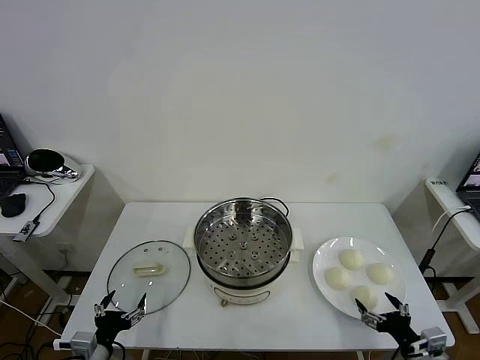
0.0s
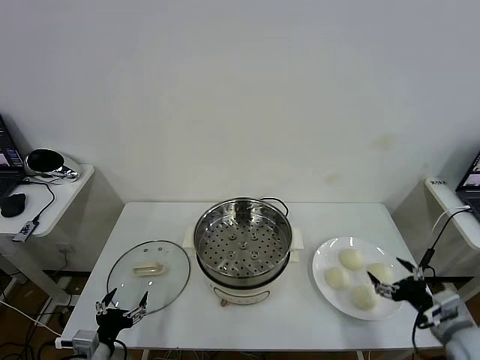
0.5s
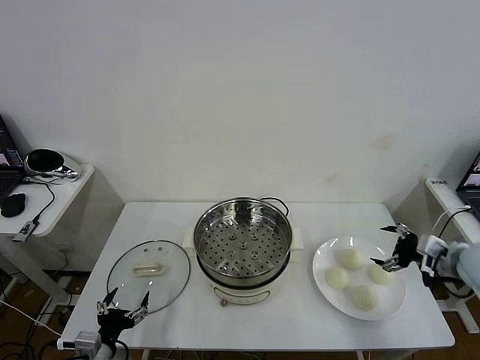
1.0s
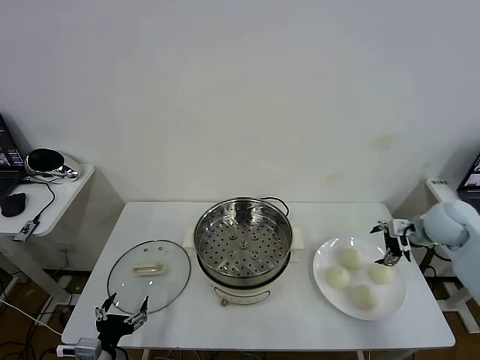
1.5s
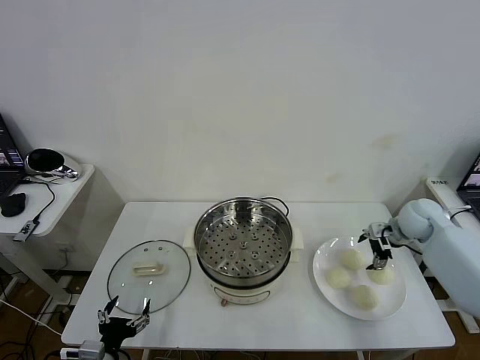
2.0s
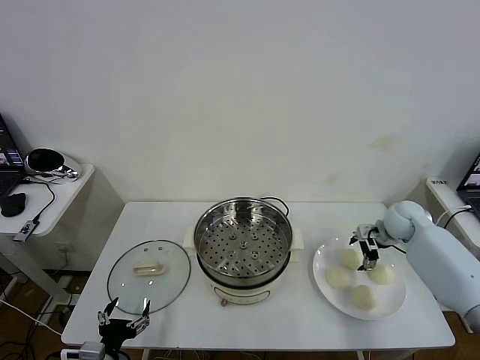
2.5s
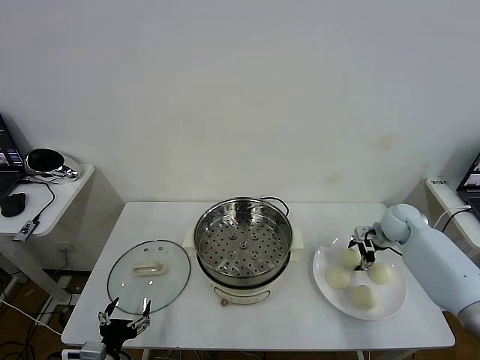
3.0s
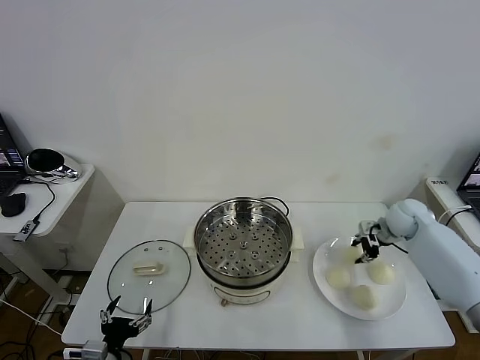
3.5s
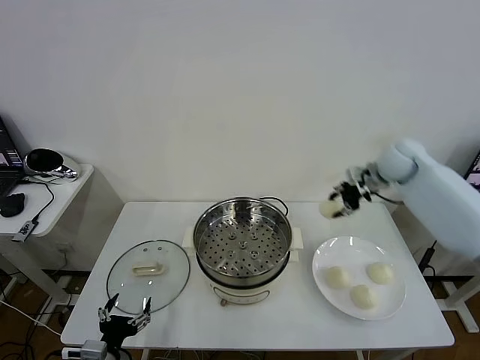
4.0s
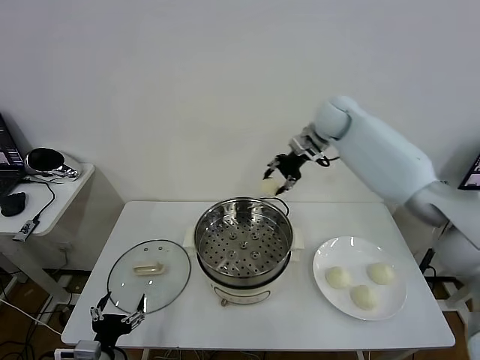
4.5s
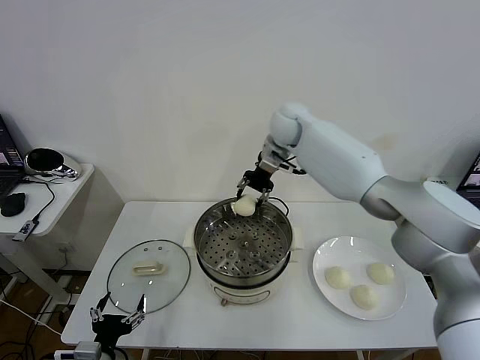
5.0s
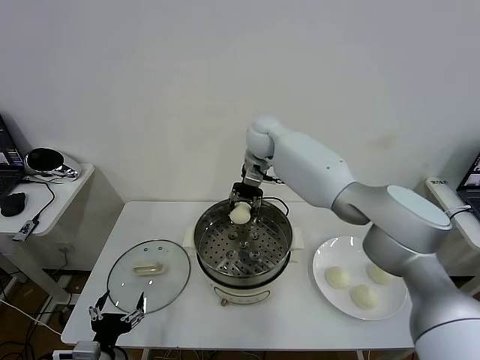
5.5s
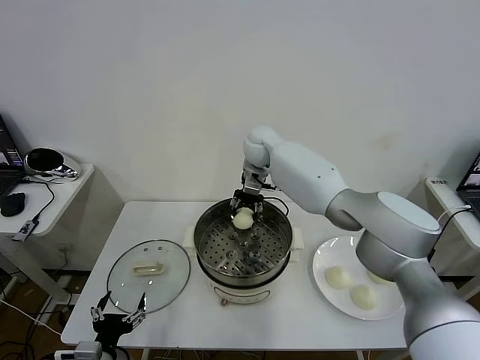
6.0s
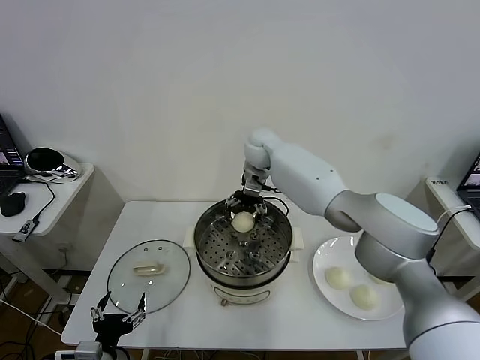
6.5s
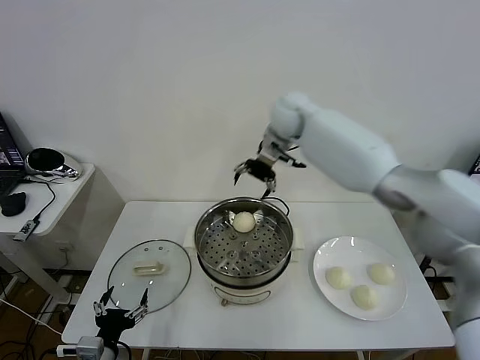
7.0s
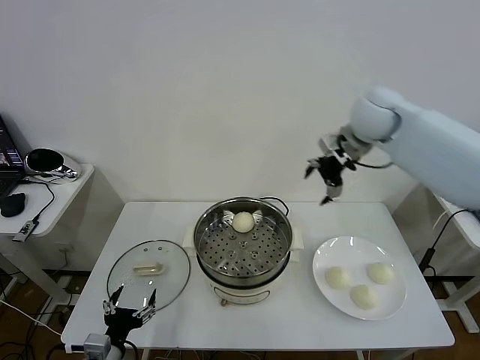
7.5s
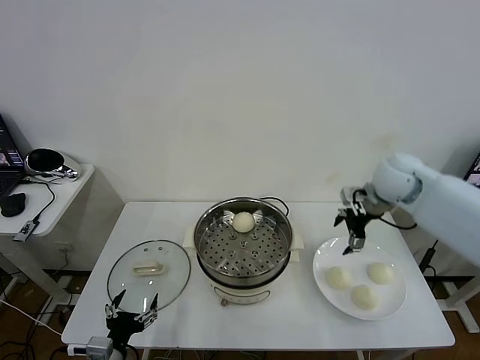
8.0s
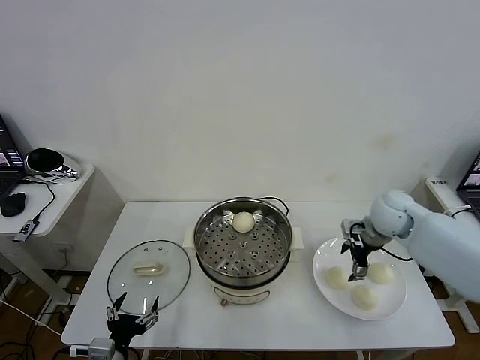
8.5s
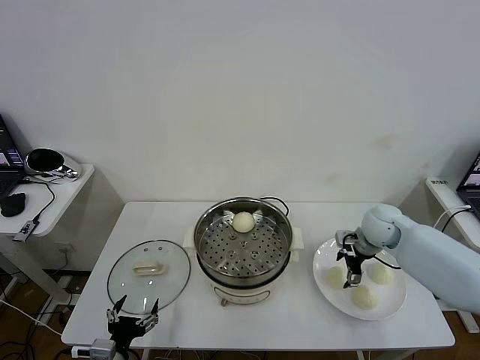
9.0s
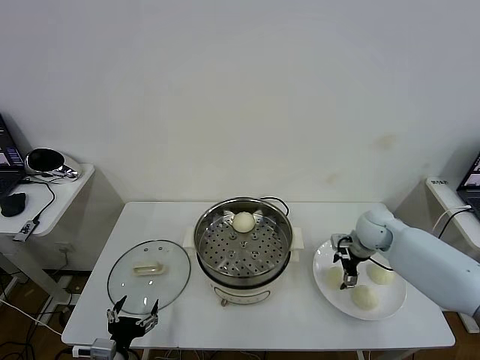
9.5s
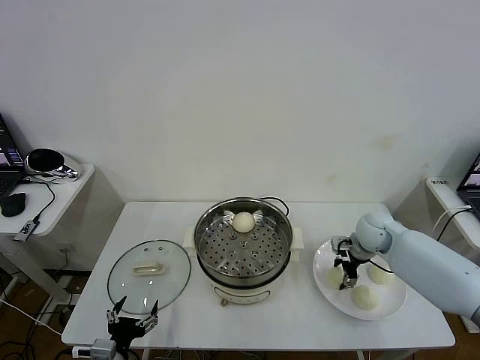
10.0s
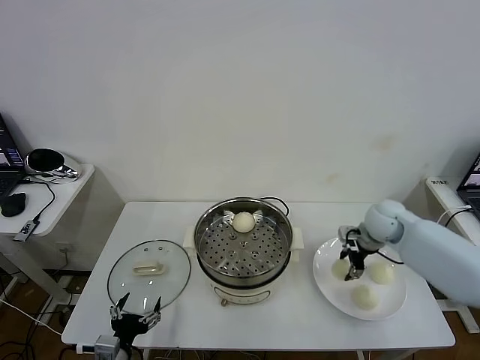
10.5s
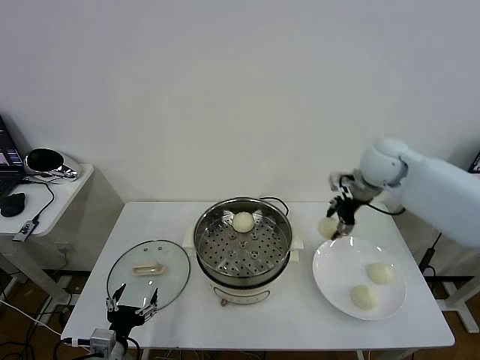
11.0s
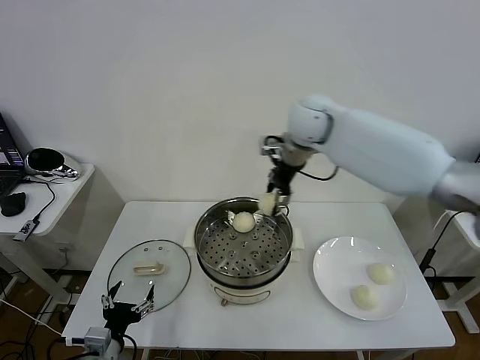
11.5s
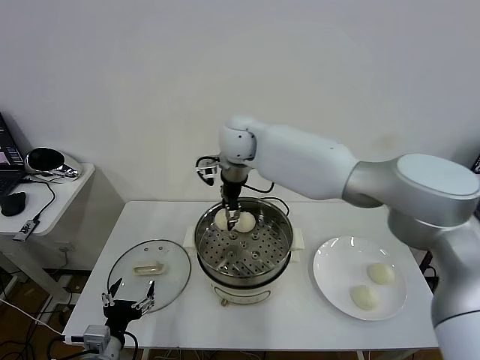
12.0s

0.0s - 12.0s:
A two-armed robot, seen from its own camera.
Task of the whole recording: take steamed baozi put them in steamer then cover it.
Step, 0.0s - 3.0s: Grasp the baozi in the plate with right gripper.
Step, 3.5s - 6.5s: Place the baozi on the steamer with right gripper.
Step, 7.0s - 10.0s: Grasp the baozi in the plate with right gripper.
2.0s - 4.0s: The right gripper moves upward, to the left and forward, approximately 20 cm, and closes.
4.0s - 6.0s: The right gripper shifts approximately 30 cm to the left.
6.0s - 8.0s: The right gripper shifts some 30 cm to the right and backward, and opens its fingers.
8.0s - 10.0s: The right gripper goes roughly 15 cm downward.
10.0s - 12.0s: The right gripper heads to the left and upward, covering roughly 40 cm.

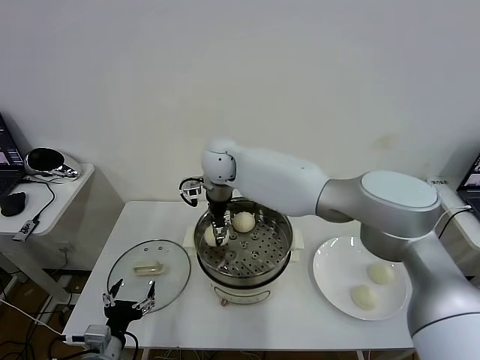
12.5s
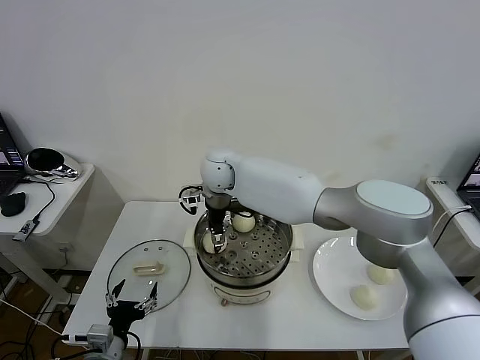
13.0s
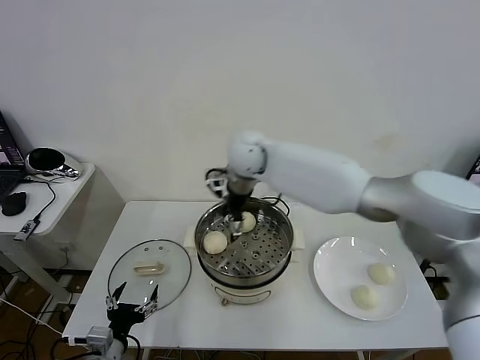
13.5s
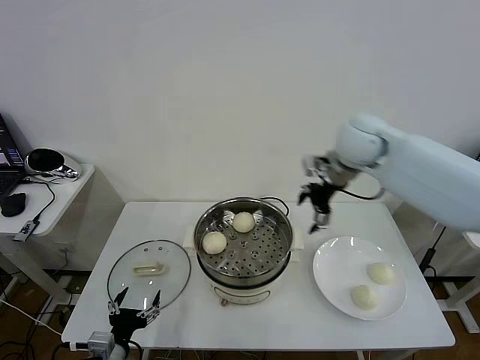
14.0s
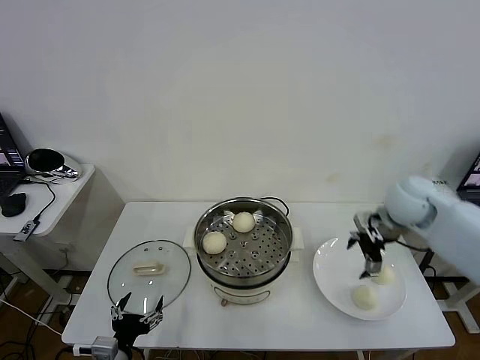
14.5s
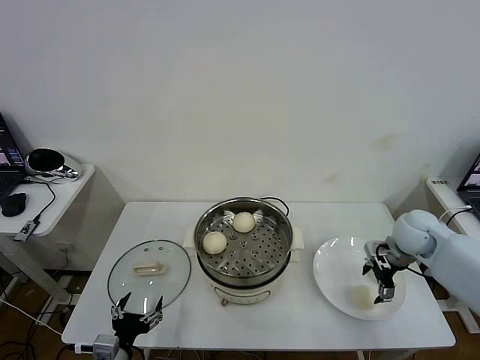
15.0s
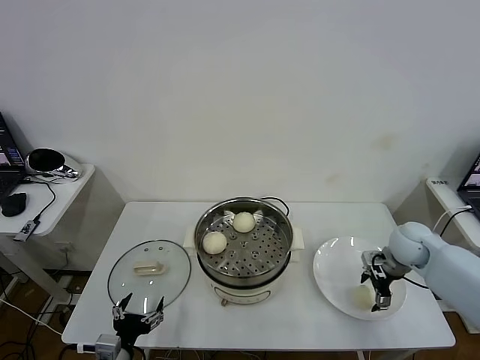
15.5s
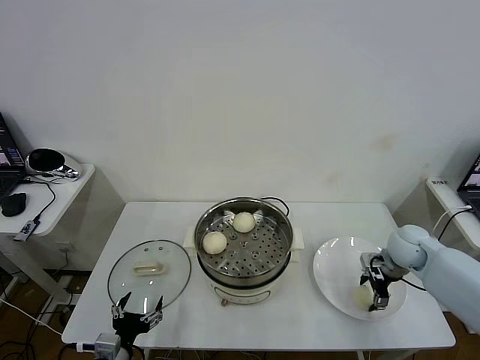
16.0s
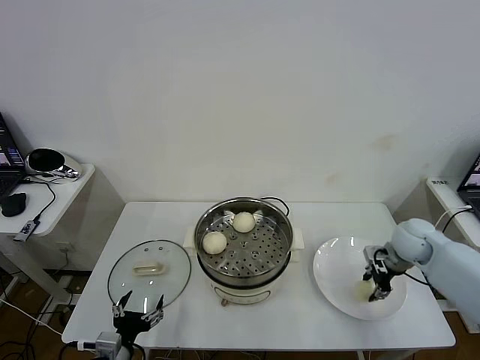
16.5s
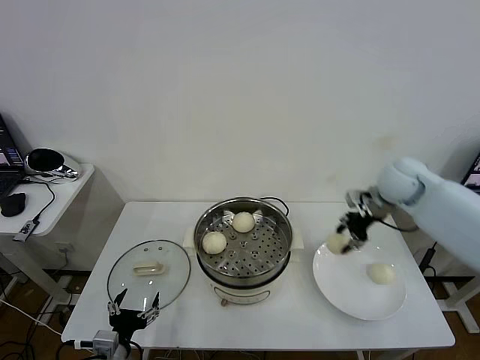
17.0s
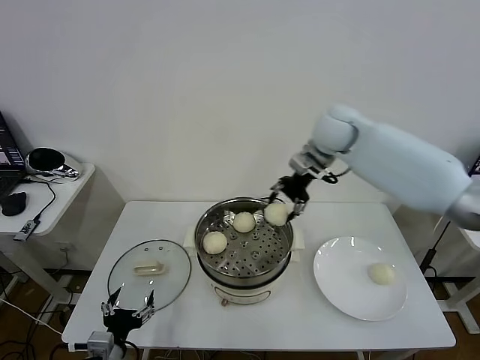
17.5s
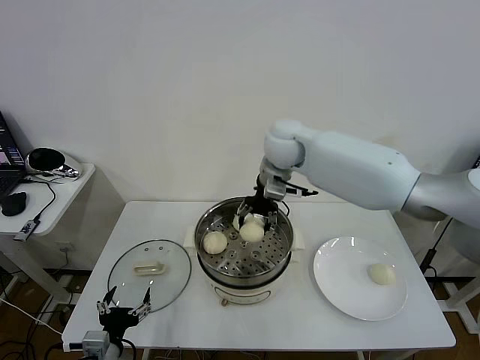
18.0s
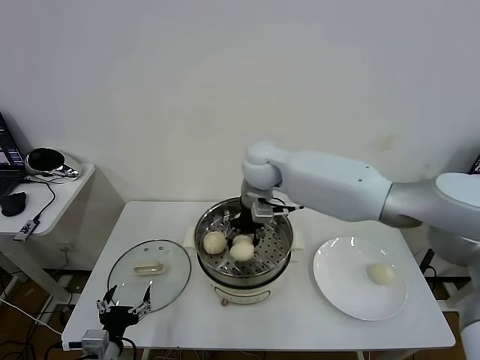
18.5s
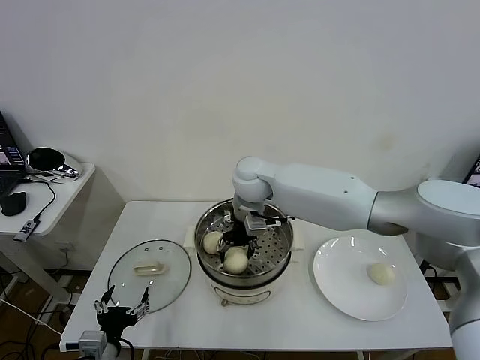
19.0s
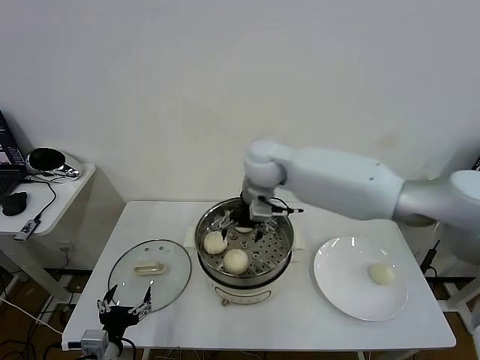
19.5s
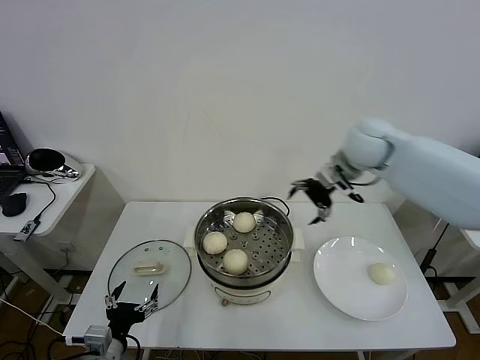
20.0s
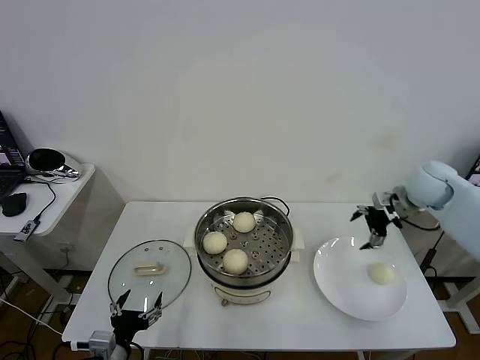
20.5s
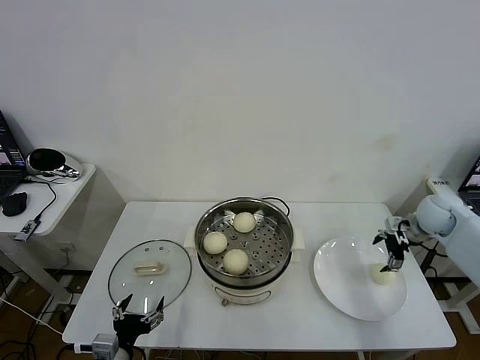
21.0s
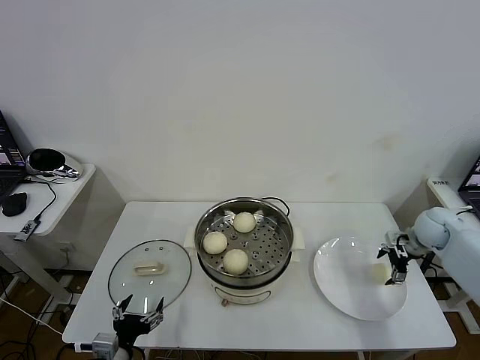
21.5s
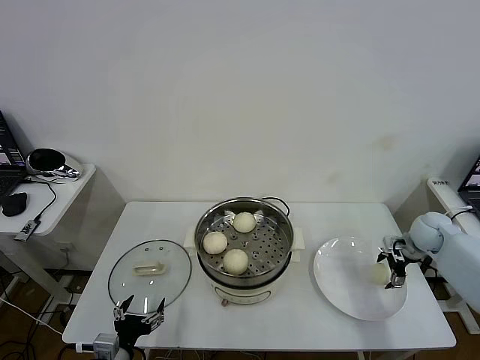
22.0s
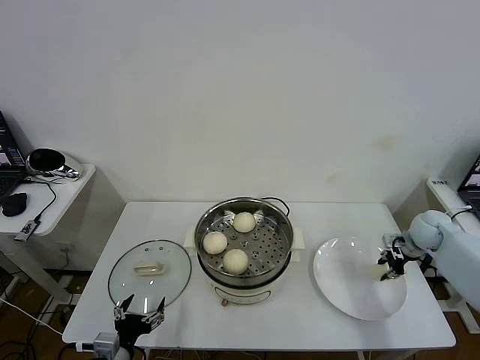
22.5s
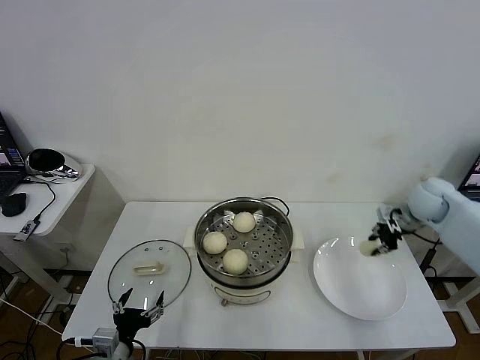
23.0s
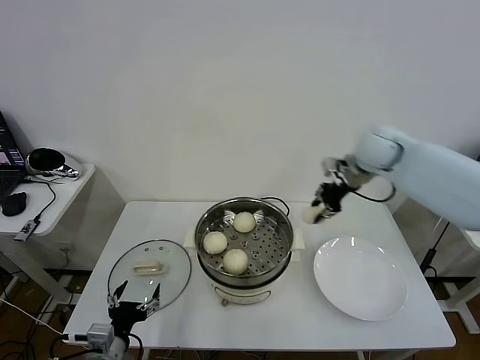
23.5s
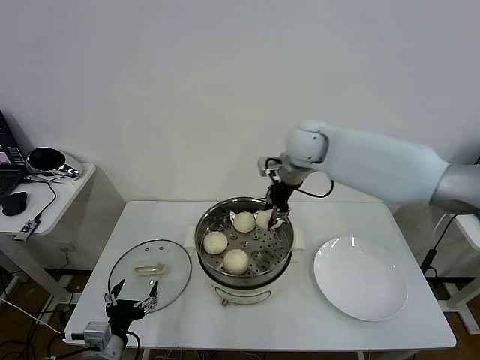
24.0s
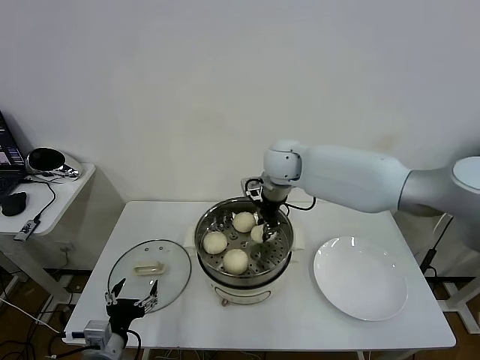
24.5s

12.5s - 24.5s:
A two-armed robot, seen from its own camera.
Task of the whole recording: take steamed baozi put them in steamer then cover it.
Step, 13.5s - 16.0s: Grasp the baozi in the plate with right gripper.
Step, 16.5s - 19.0s: Place the baozi on the steamer with right gripper.
Step, 19.5s - 22.5s: Grasp the baozi in the plate with right gripper.
12.5s - 14.5s: The right gripper shifts roughly 40 cm to the right, and opens up.
14.5s - 16.5s: The right gripper heads downward and to the right, covering approximately 15 cm, and closes up.
16.5s - 18.5s: The right gripper goes approximately 40 cm to the left and upward.
18.5s - 20.5s: The right gripper goes about 35 cm to the right, and opens up.
20.5s - 22.5s: The right gripper goes roughly 15 cm downward and to the right, and closes up.
22.5s - 24.5s: The right gripper shifts approximately 40 cm to the left and upward.

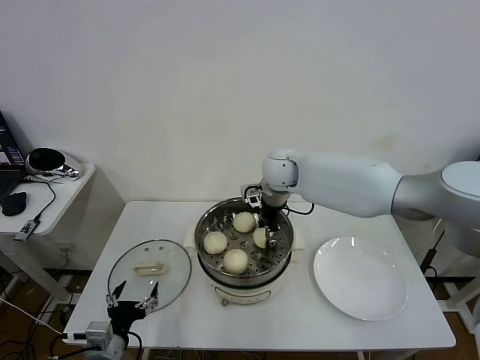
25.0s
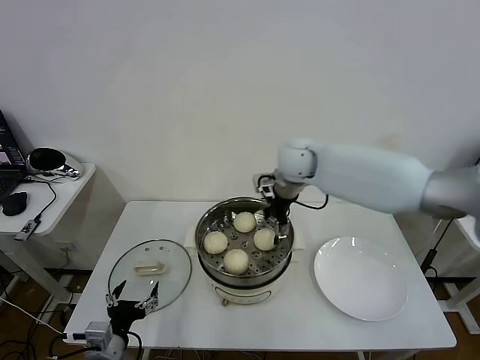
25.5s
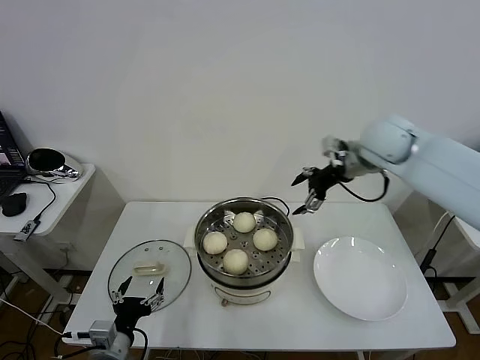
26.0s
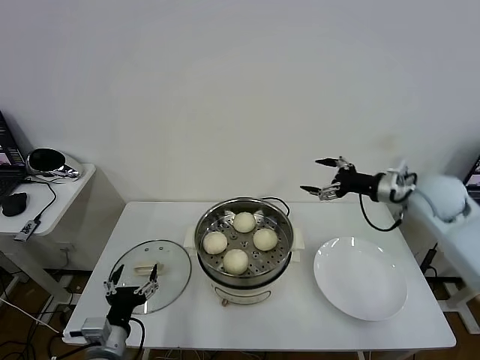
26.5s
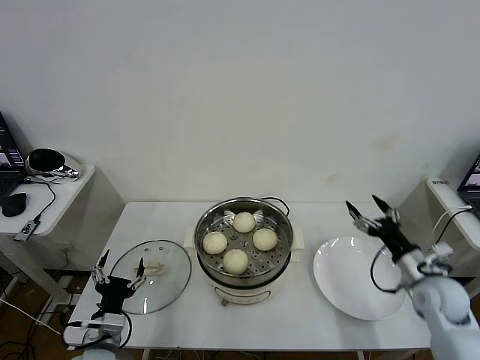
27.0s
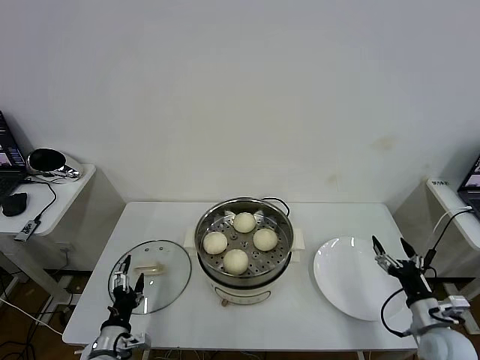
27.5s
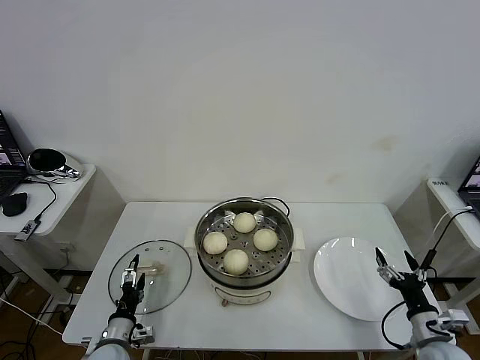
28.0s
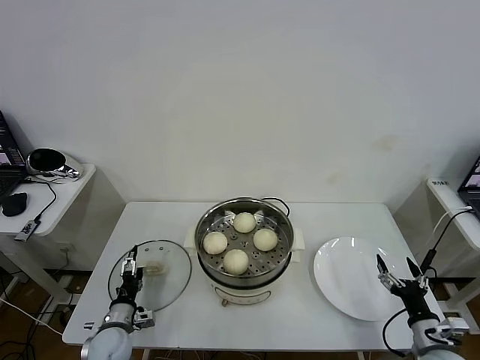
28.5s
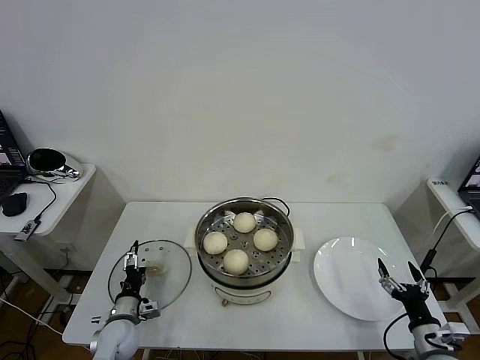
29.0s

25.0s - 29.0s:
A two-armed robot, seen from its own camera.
Task of the whole recording: take steamed baozi put them in steamer then cover it.
25.0s - 27.0s: The right gripper travels to the right, backward and downward by roughly 40 cm, and opens.
27.0s - 29.0s: The left gripper moves downward and forward, about 15 cm, while the right gripper shifts some 20 cm backward and downward.
